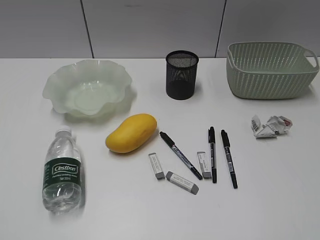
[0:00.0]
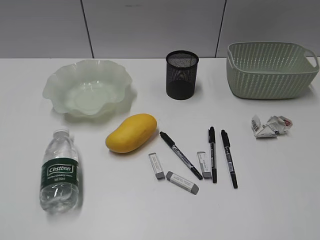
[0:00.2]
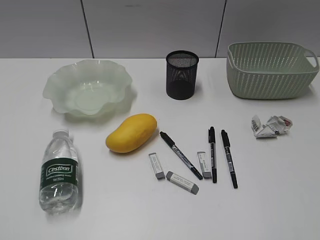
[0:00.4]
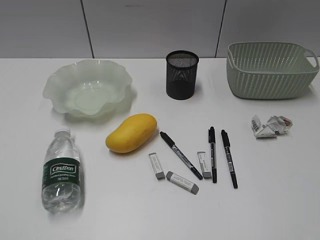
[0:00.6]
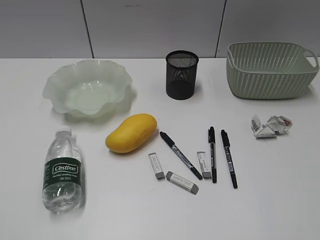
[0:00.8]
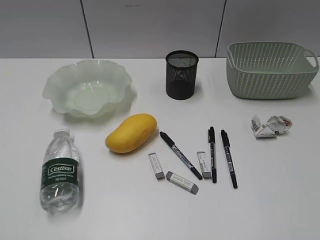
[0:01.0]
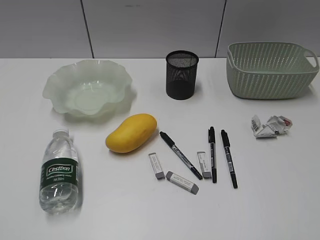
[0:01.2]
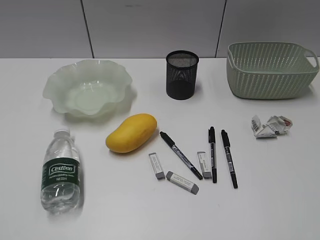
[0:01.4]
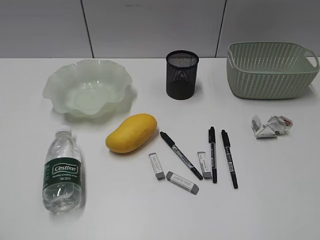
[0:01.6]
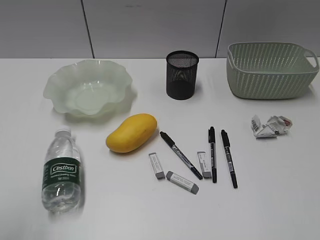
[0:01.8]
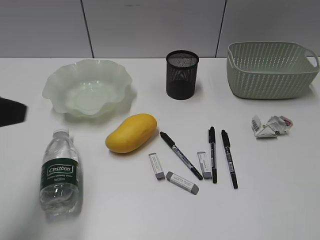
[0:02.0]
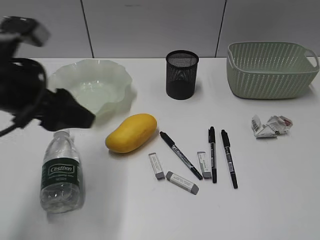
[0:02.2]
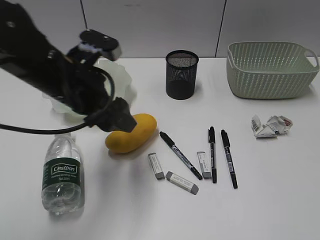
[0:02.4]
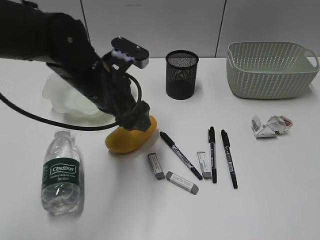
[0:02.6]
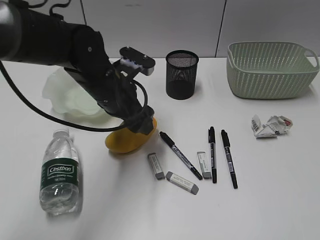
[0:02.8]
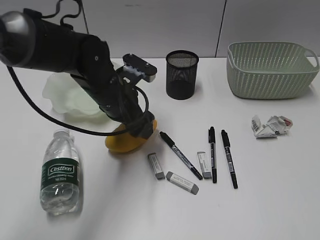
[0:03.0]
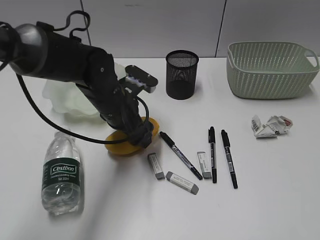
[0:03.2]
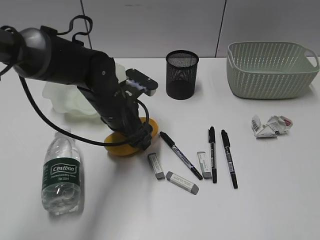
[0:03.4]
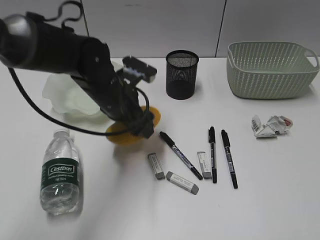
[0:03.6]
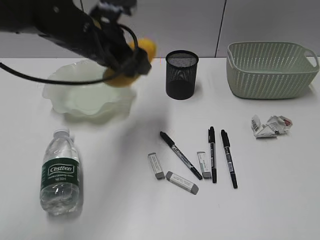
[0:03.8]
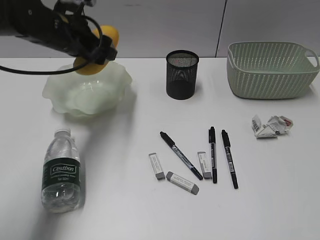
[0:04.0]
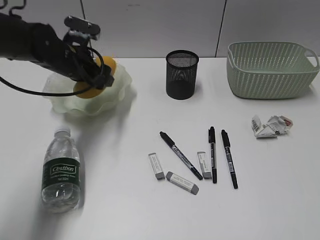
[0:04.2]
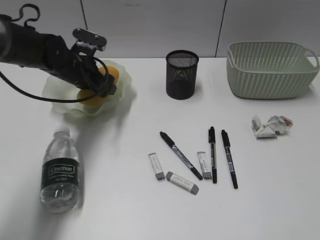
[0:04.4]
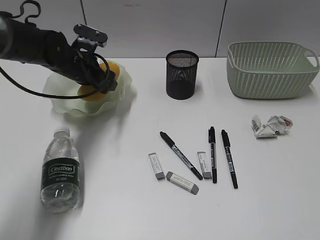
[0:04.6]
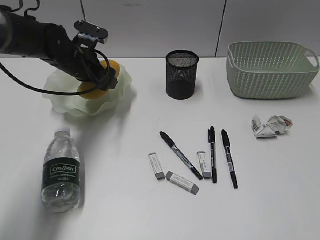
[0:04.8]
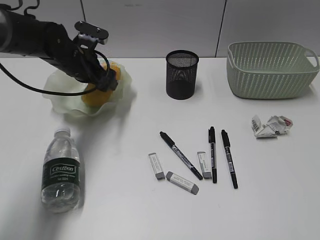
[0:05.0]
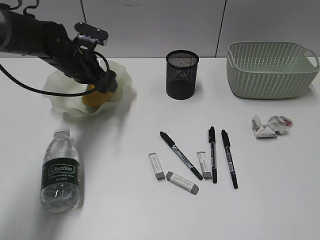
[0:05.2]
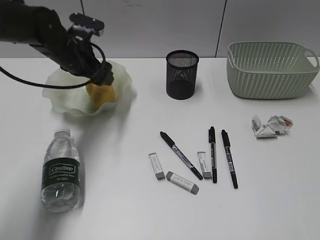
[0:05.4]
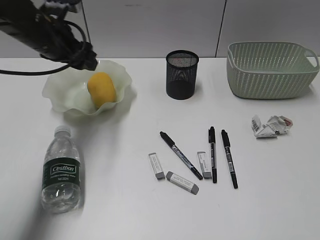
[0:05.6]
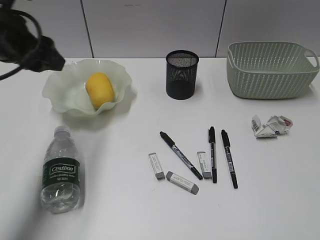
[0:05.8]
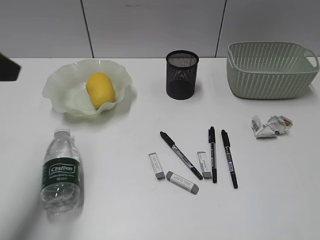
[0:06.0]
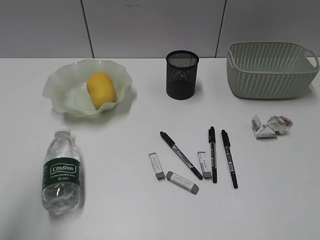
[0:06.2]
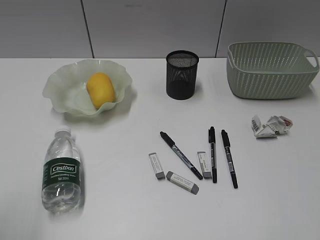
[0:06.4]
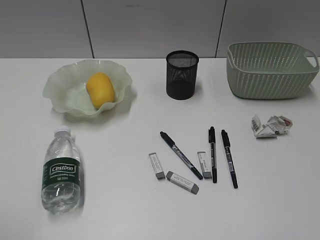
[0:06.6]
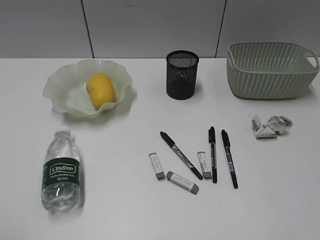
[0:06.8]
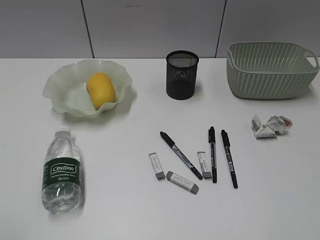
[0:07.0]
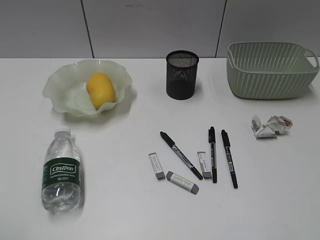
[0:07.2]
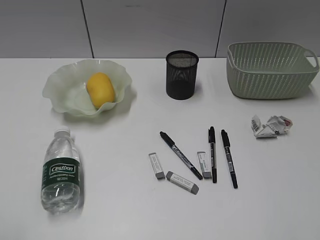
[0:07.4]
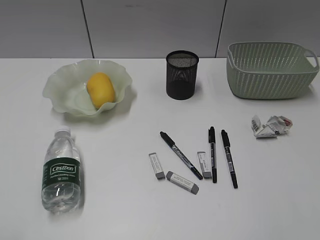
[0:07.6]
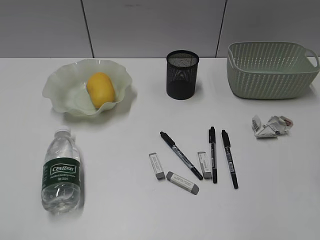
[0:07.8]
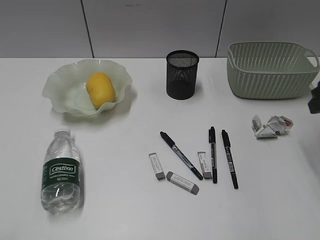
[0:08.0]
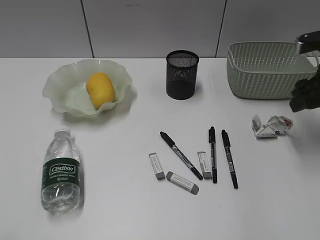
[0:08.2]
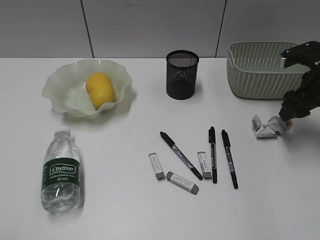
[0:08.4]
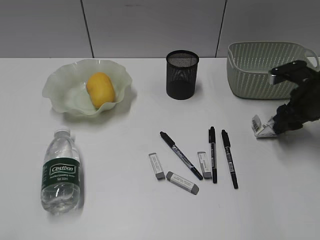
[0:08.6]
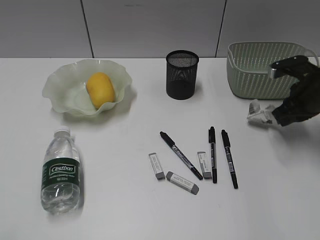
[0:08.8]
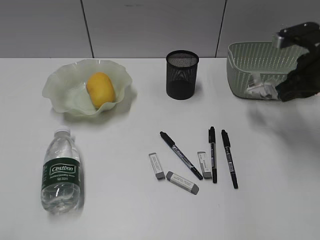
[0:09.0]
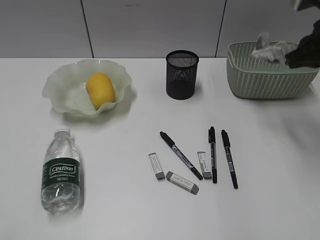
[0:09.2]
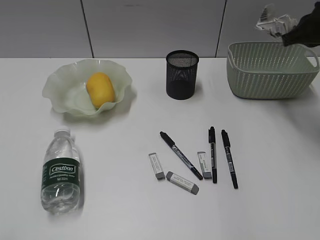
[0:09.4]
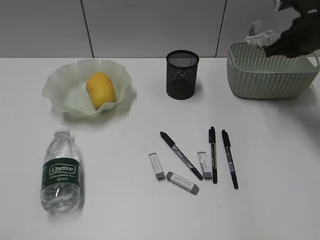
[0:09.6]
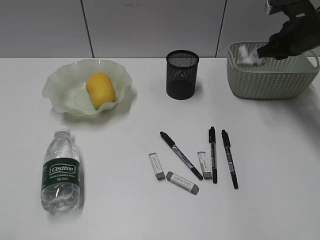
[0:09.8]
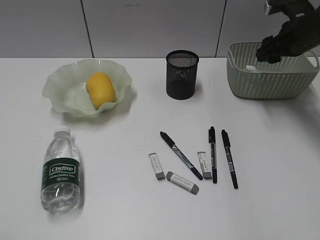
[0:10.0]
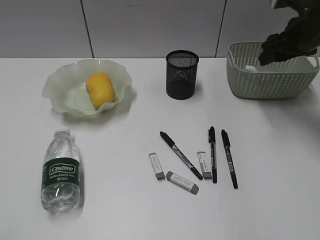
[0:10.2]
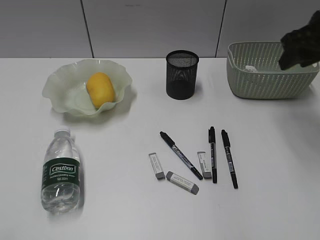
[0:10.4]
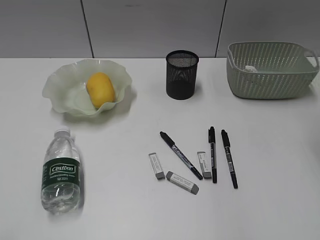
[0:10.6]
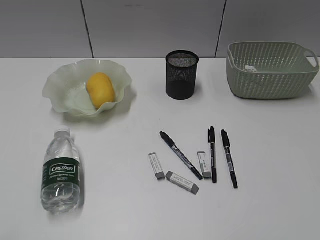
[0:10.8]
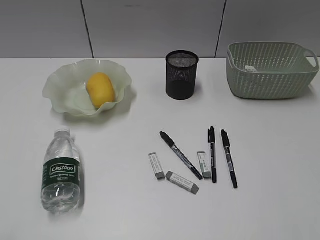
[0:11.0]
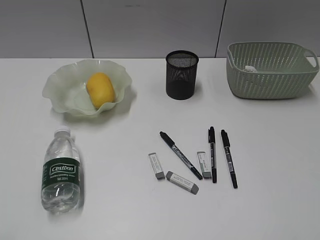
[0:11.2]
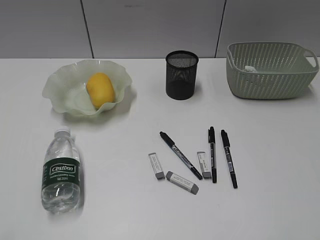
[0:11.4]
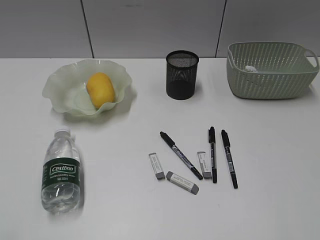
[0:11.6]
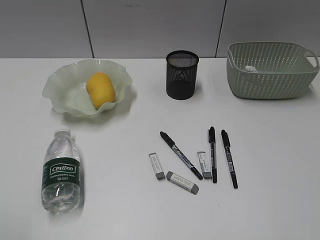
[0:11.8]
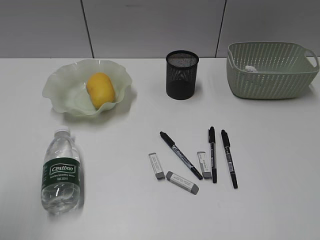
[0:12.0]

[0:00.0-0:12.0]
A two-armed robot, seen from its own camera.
Step, 0:01.6 to 0:03.4: Grasp the mango with left gripper.
Step, 0:03.6 to 0:05.4: Place the mango in the plate with left gripper.
Step, 0:05.6 to 0:08.6: Grasp the waste paper with right gripper.
Step, 0:08.8 to 0:10.0: Place the waste paper in the basket with right gripper.
0:01.6 to 0:03.0: The left gripper heads forward, to the right and downward, covering roughly 40 cm, and opens its fingers.
0:03.0 to 0:04.4: The left gripper heads forward and to the left, covering about 15 cm, and reaches roughly 10 cm upward, then returns.
0:04.4 to 0:06.0: The left gripper shifts about 30 cm backward and upward.
0:06.0 to 0:07.6: The left gripper shifts roughly 20 cm backward.
0:07.6 to 0:09.0: The right gripper moves forward, some 25 cm, and closes its fingers.
0:09.0 to 0:10.4: The right gripper is displaced upward by about 5 cm, goes forward and returns, some 10 cm each way, and opens.
0:10.4 to 0:12.0: The right gripper shifts some 35 cm backward. Meanwhile the left gripper goes approximately 10 cm forward.

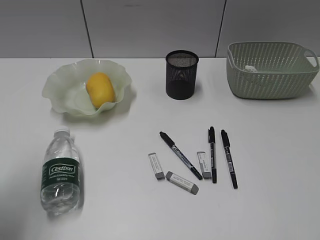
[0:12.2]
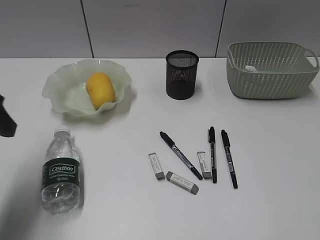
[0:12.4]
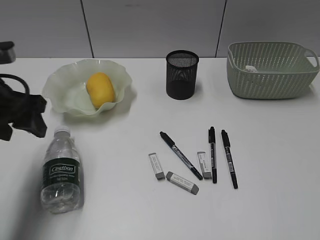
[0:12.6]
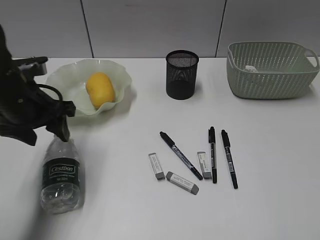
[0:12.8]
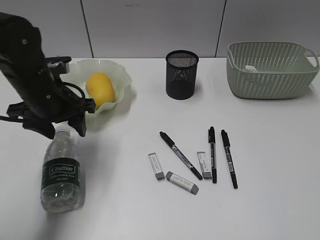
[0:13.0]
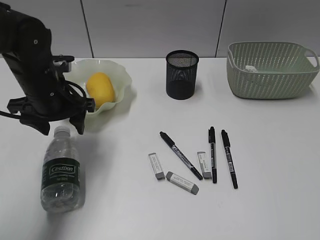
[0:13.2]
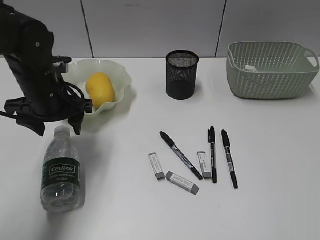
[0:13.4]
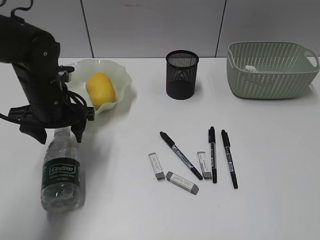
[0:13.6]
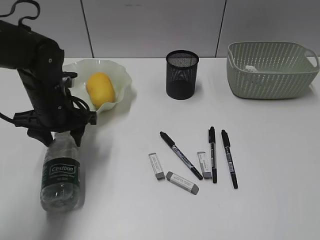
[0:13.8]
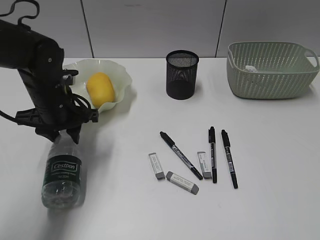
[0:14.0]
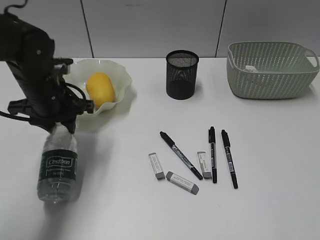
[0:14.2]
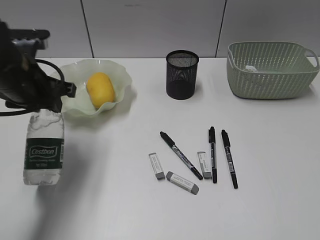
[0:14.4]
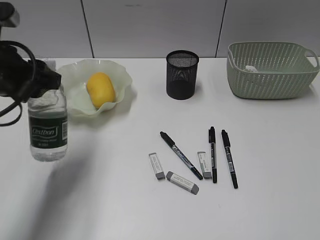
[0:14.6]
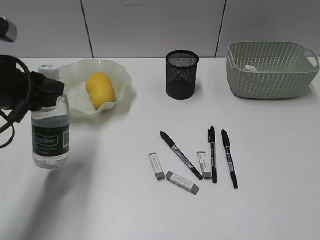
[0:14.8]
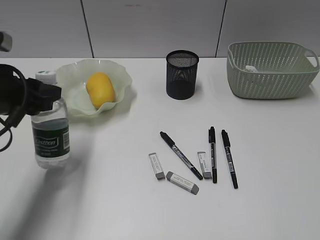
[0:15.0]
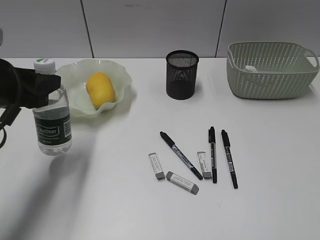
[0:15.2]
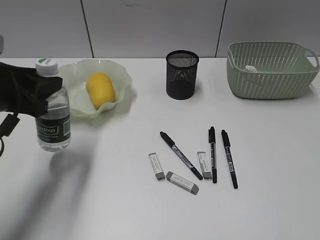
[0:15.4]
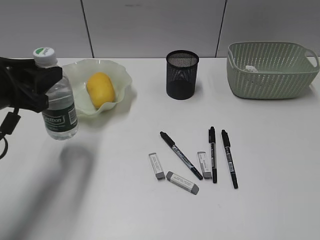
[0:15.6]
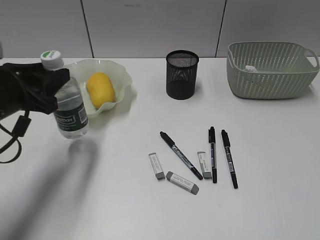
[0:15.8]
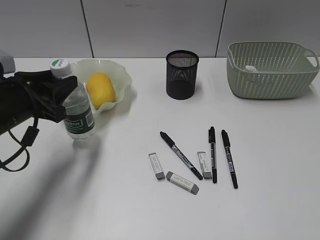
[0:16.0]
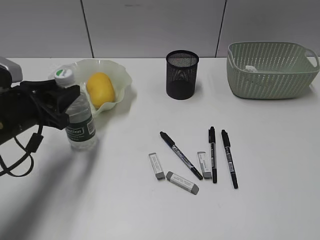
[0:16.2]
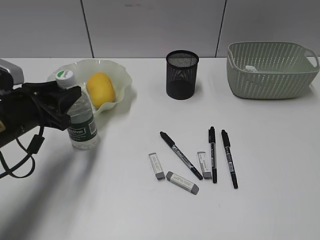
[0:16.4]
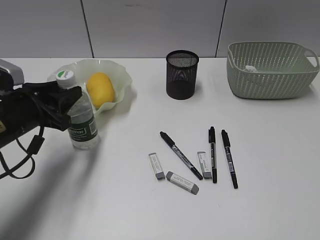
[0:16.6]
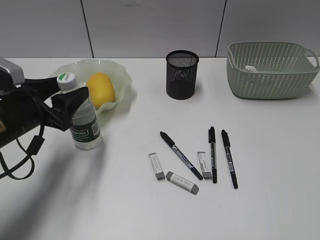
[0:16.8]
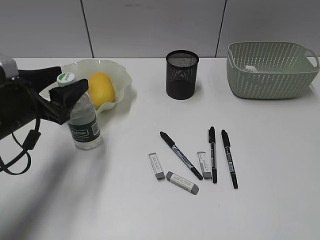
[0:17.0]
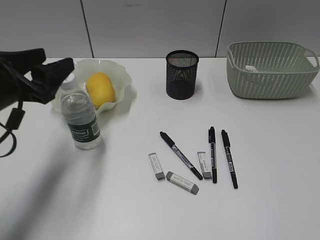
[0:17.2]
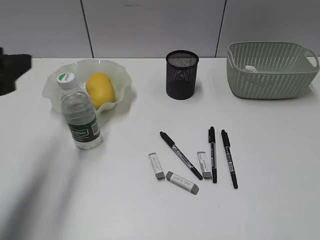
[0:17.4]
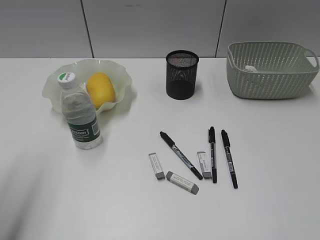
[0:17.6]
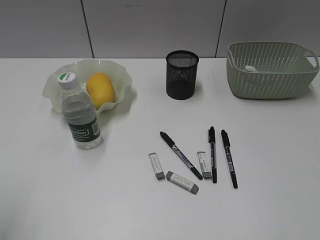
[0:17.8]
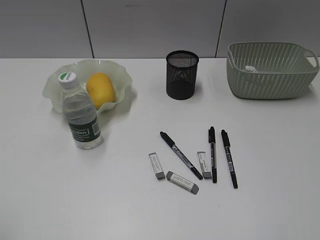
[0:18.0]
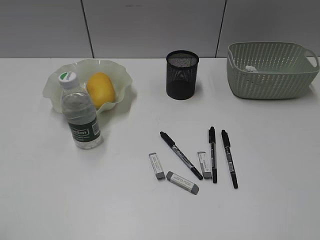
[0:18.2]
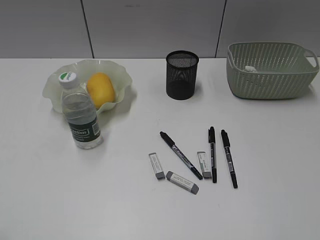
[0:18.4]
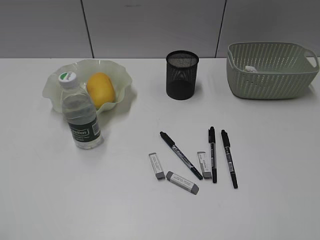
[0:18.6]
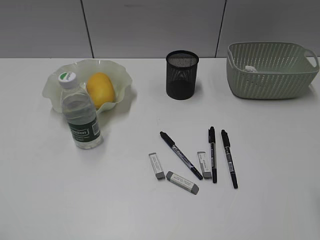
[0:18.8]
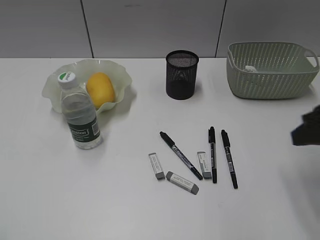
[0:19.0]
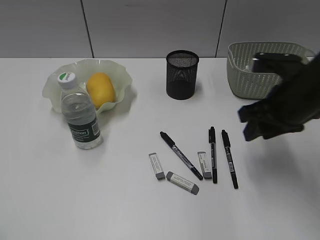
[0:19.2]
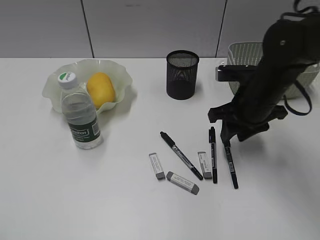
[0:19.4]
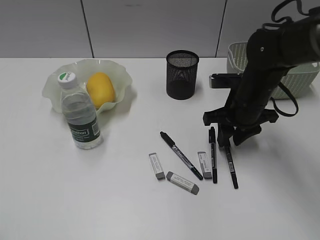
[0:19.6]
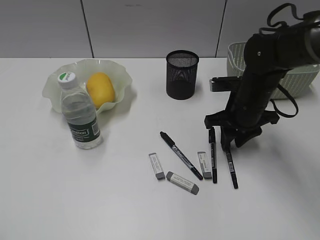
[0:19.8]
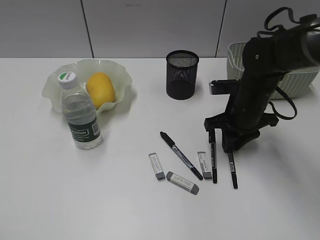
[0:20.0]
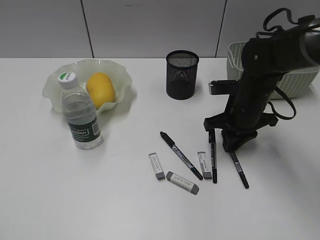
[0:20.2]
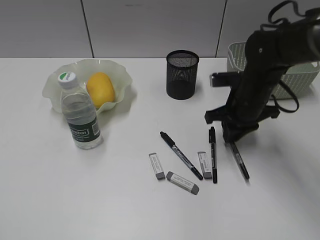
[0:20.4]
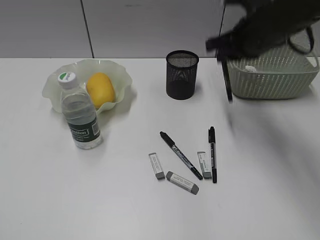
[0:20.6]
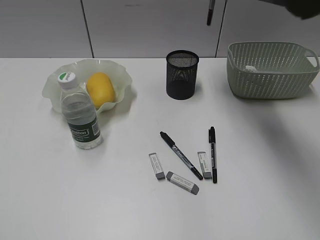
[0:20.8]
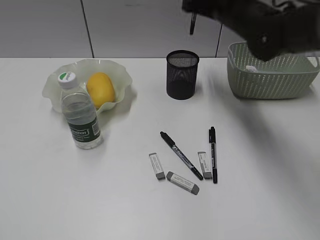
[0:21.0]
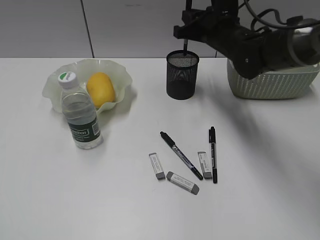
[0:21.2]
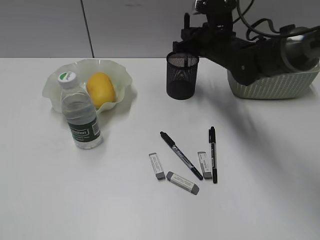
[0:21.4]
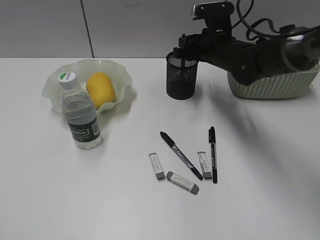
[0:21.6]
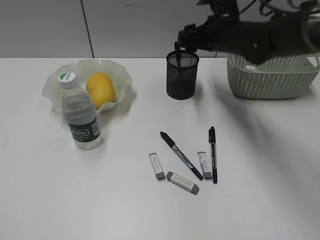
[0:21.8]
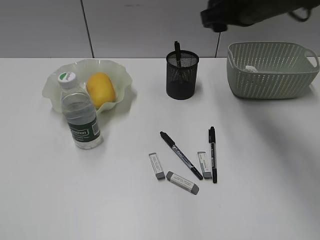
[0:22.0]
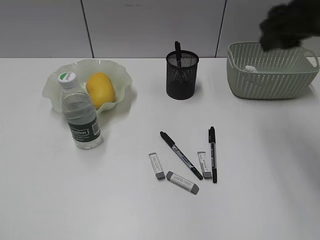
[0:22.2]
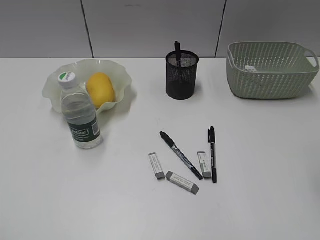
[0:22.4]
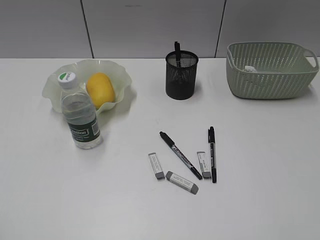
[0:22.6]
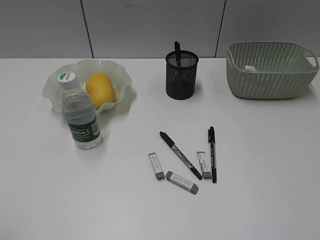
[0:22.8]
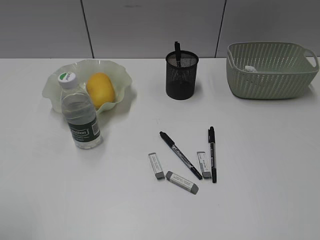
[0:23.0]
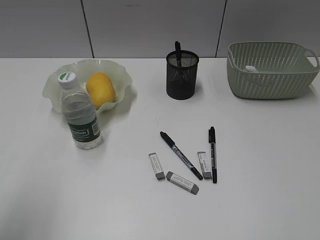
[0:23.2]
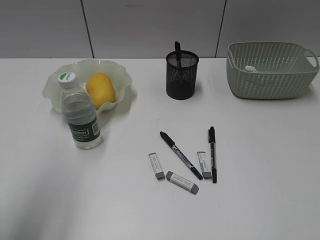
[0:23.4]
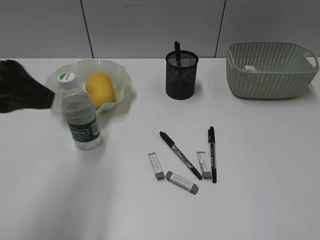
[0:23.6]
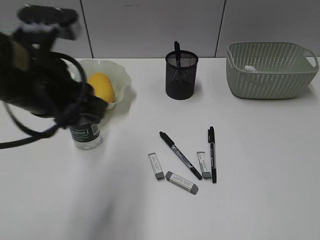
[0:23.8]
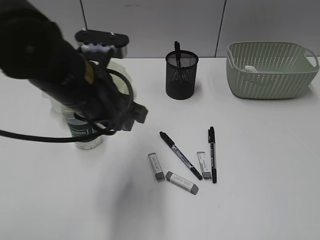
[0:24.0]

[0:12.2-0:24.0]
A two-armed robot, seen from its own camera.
Step, 0:14.2 to 0:17.0: Stand the bottle with left gripper.
Step, 0:17.2 to 0:20.2: Grasp the black pen with right gripper.
Step, 0:20.4 to 0:21.8: Place the black pen in pen holder with right gripper.
0:12.2 to 0:13.6: The left gripper heads forward, downward and to the right, covering about 25 cm.
0:13.6 to 0:15.2: The left gripper is displaced backward, upward and to the left by roughly 10 cm, and closes its fingers.
0:15.2 to 0:16.6: The left gripper goes some 5 cm downward.
0:16.6 to 0:18.2: The left gripper shifts roughly 30 cm backward and upward.
0:18.2 to 0:19.6: The right gripper shifts about 40 cm forward and downward.
0:19.6 to 0:21.0: The right gripper goes roughly 15 cm upward and forward, and closes.
0:21.0 to 0:22.6: The right gripper heads backward and to the right, covering about 40 cm, and opens up.
0:22.6 to 0:24.0: The right gripper travels backward by some 5 cm, while the left gripper goes roughly 35 cm forward and to the right.